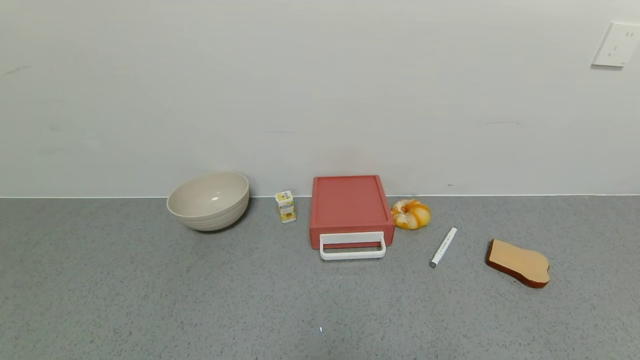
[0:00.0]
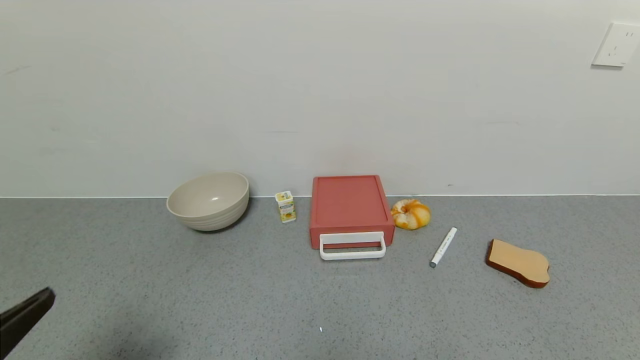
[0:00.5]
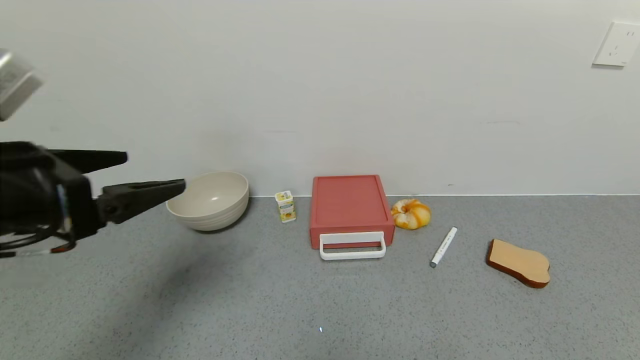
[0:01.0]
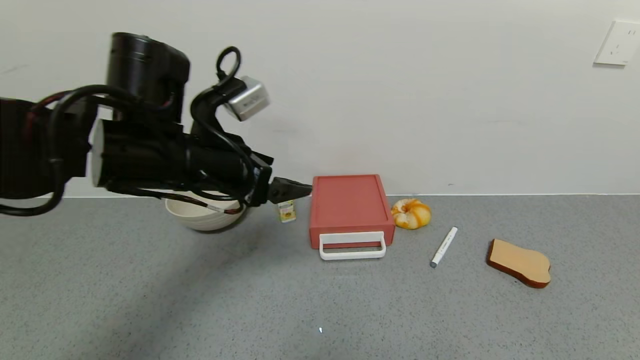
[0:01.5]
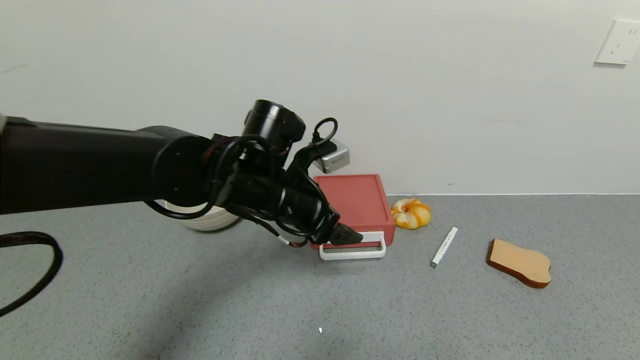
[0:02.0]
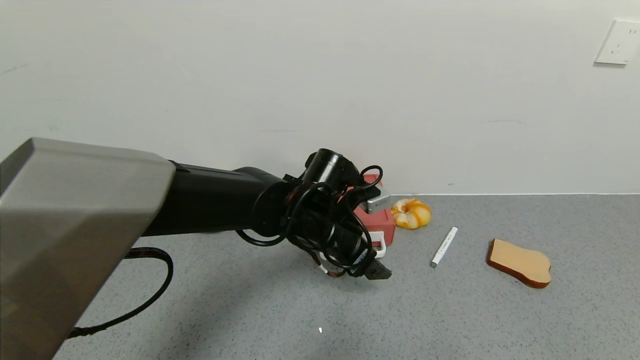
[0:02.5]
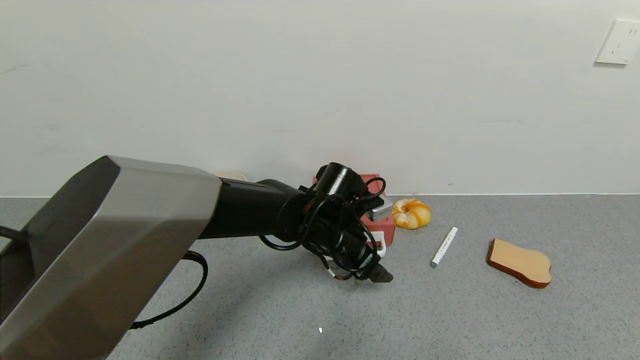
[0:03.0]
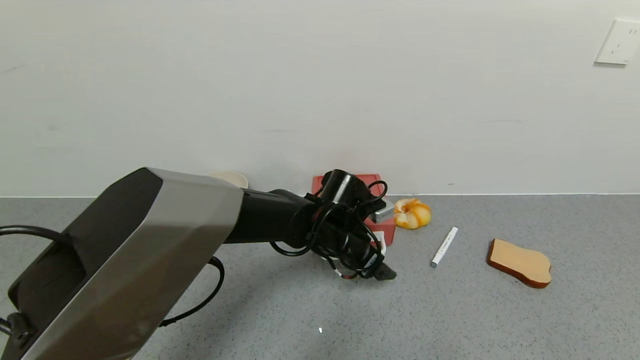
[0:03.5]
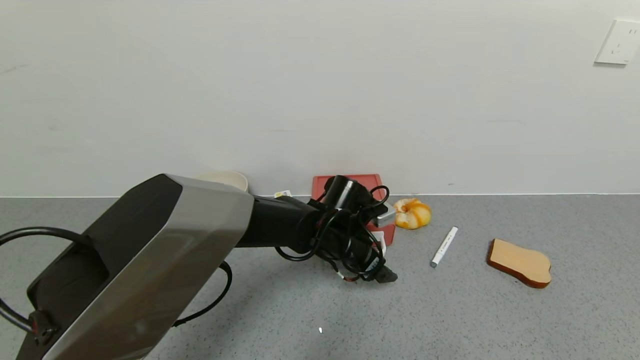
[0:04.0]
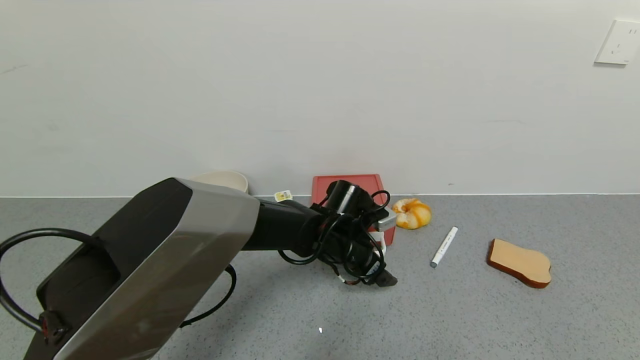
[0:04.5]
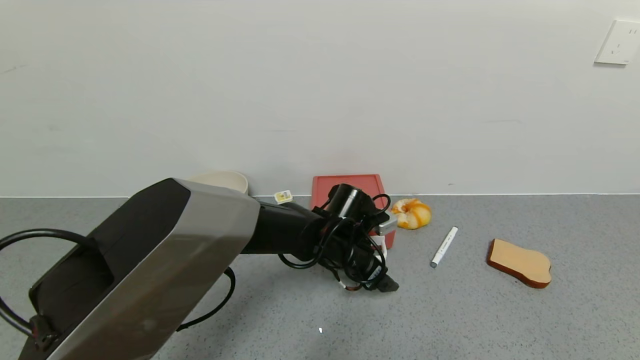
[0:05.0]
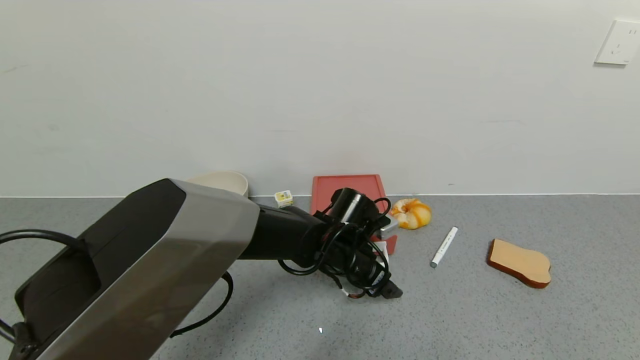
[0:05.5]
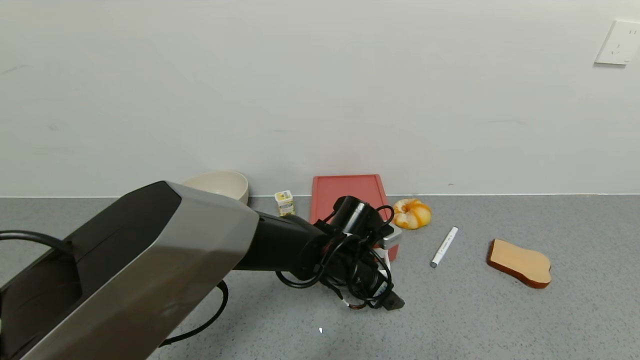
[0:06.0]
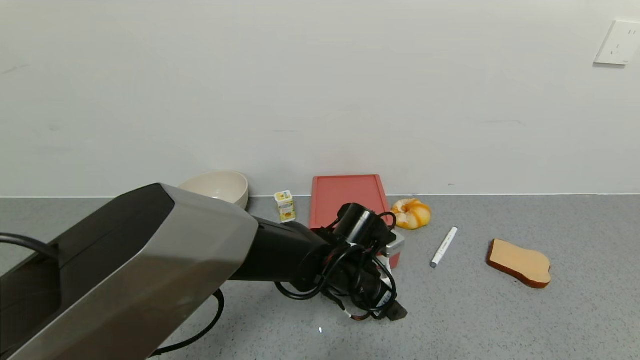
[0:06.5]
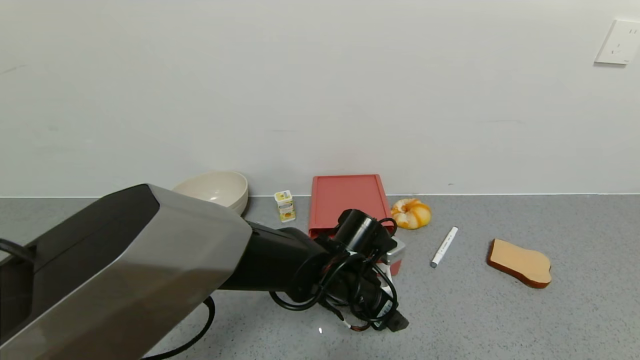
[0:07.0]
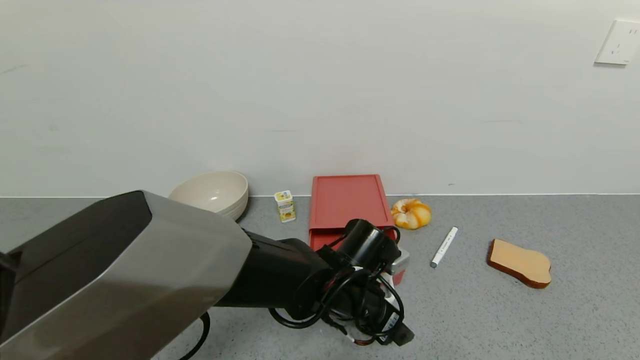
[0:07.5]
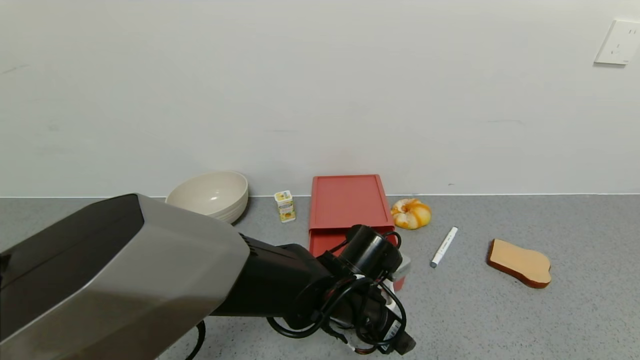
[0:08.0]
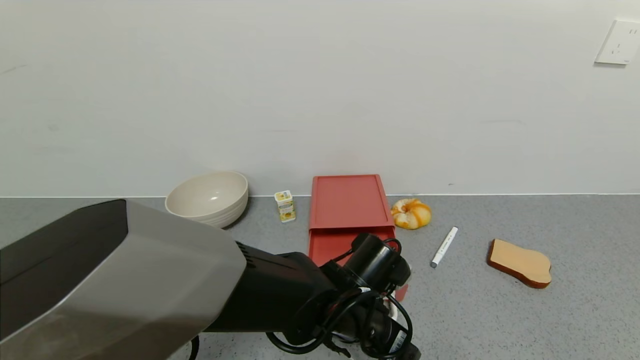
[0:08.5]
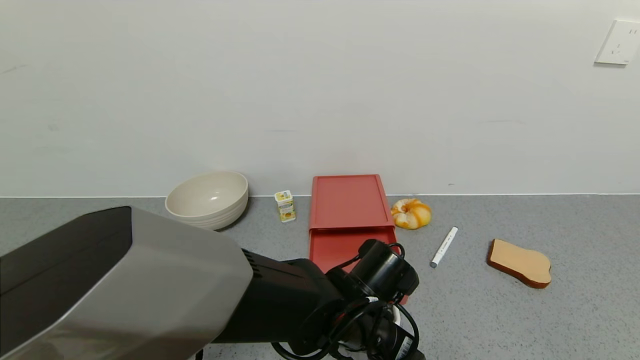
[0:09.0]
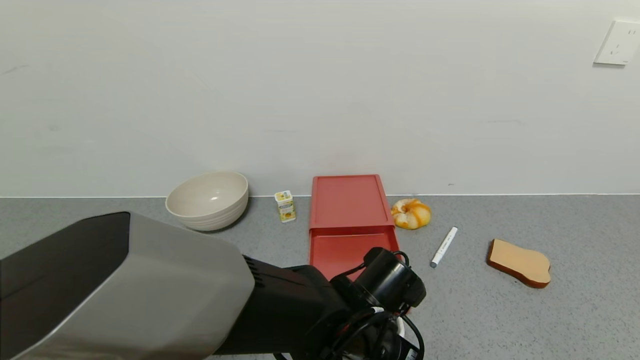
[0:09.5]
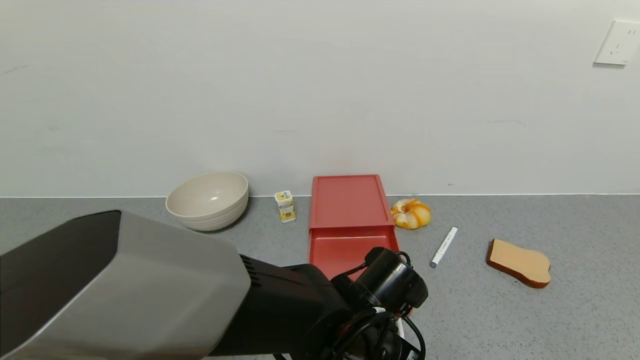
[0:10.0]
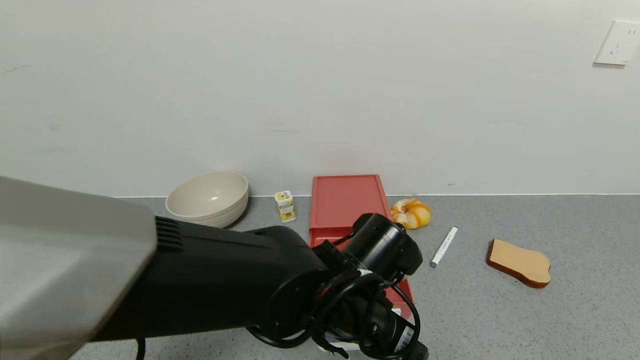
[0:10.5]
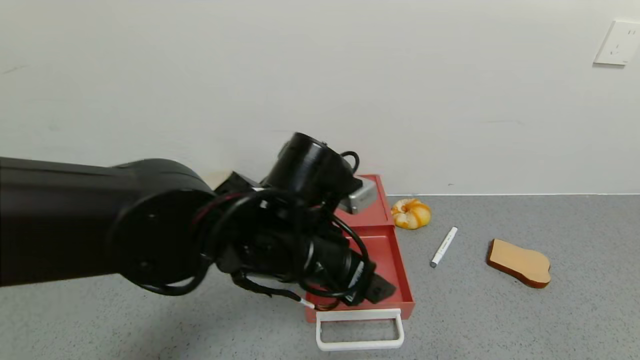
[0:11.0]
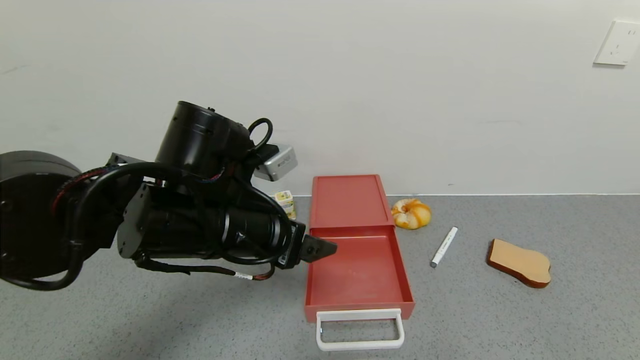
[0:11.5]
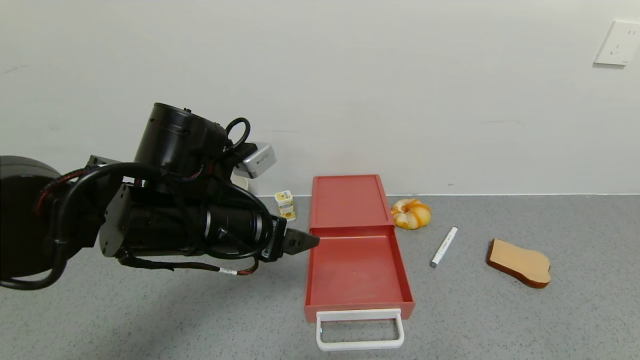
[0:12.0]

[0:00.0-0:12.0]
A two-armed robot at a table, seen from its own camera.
Task of the whole recording: use the gripper to open the drawer and close the red drawer.
Step, 0:00.0 to 0:11.0: Open the red drawer with left gripper.
0:00.0 to 0:02.0: The left gripper goes roughly 40 cm forward and to the right.
0:02.0 to 0:04.0: The left gripper is displaced downward and to the right by about 15 cm.
0:04.0 to 0:06.0: The left gripper changes place by about 5 cm.
0:06.0 to 0:08.0: The left gripper travels backward by about 5 cm.
0:08.0 to 0:10.0: The grippers make only small movements.
0:10.0 to 0:12.0: The left gripper is displaced to the left and upward by roughly 20 cm.

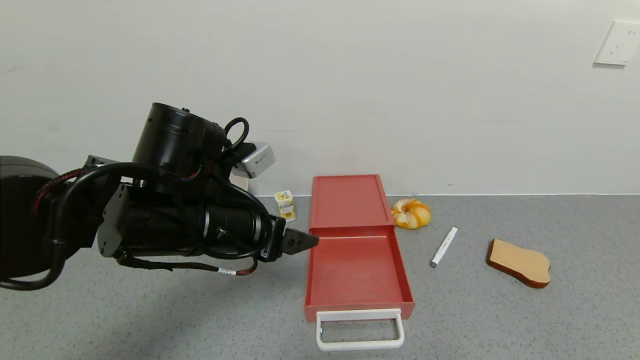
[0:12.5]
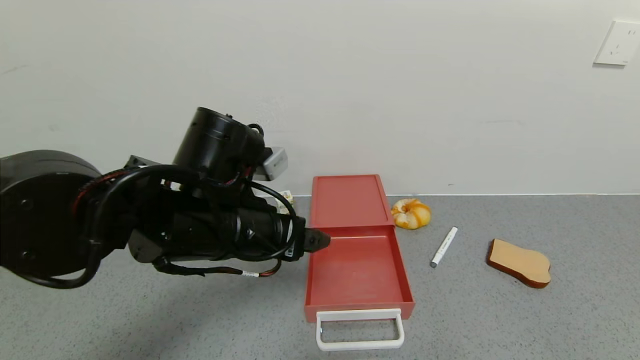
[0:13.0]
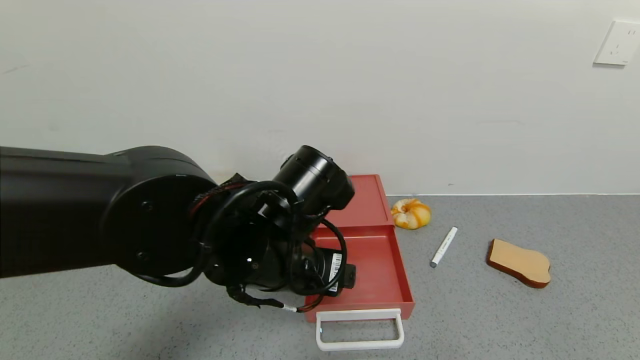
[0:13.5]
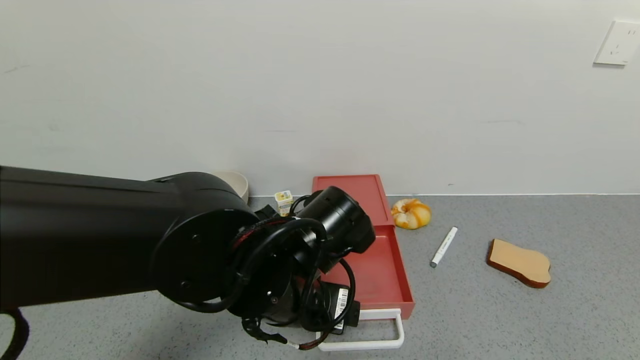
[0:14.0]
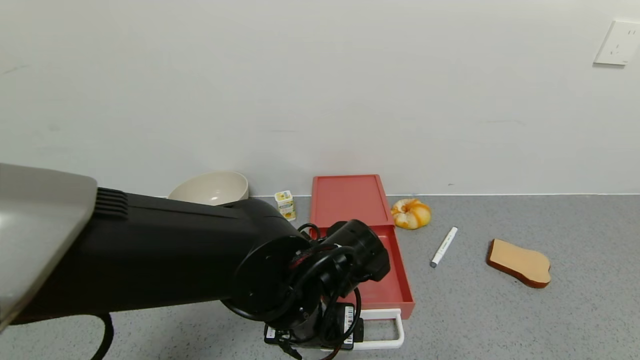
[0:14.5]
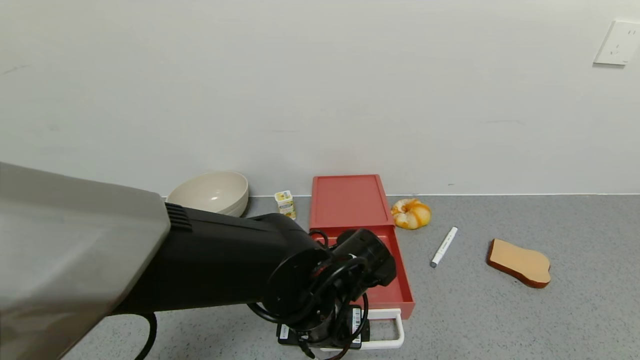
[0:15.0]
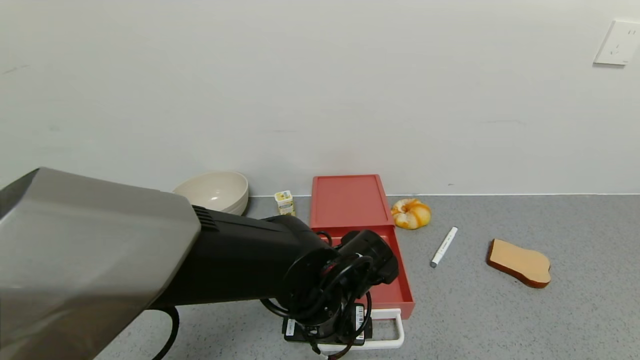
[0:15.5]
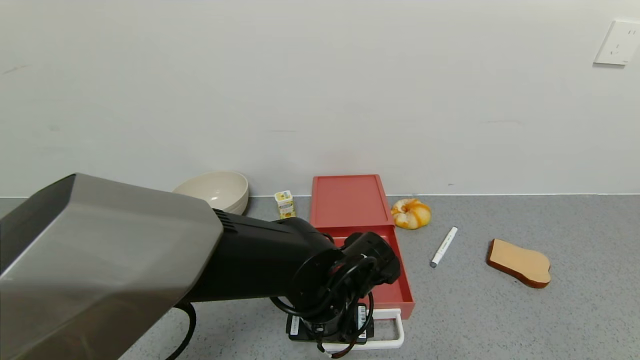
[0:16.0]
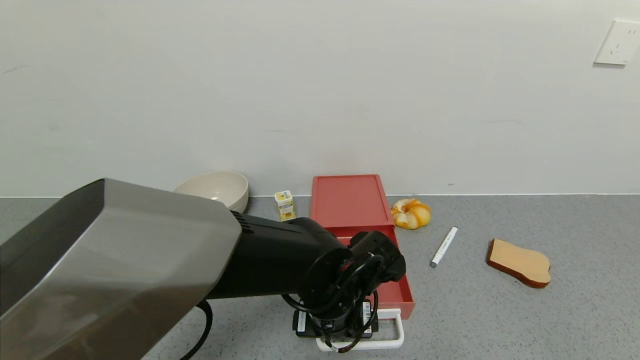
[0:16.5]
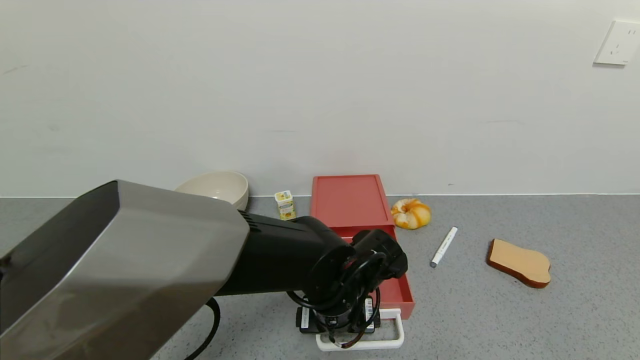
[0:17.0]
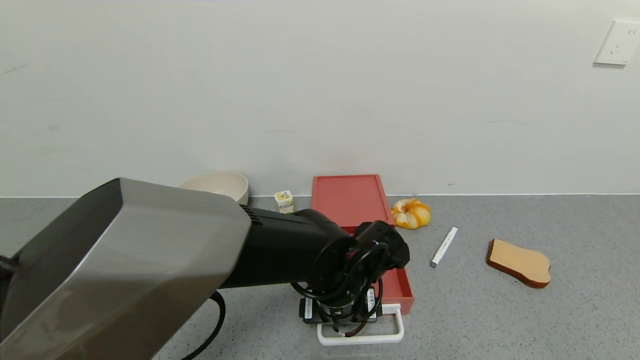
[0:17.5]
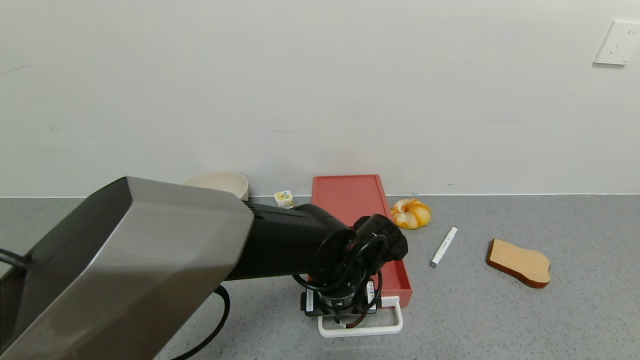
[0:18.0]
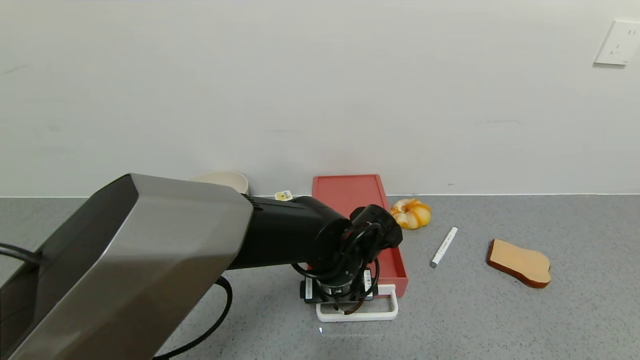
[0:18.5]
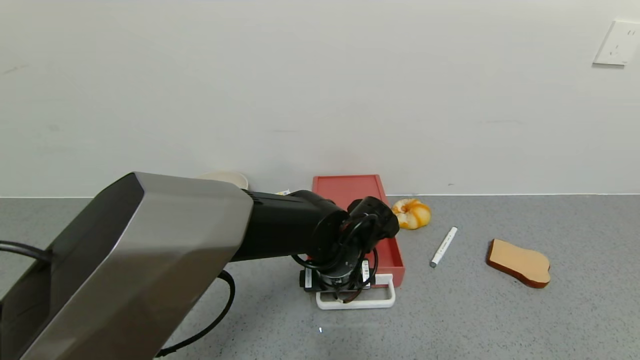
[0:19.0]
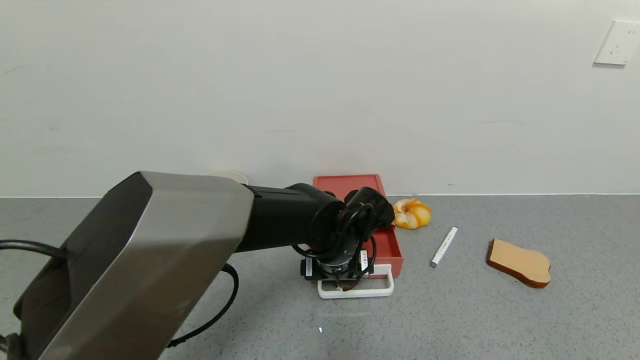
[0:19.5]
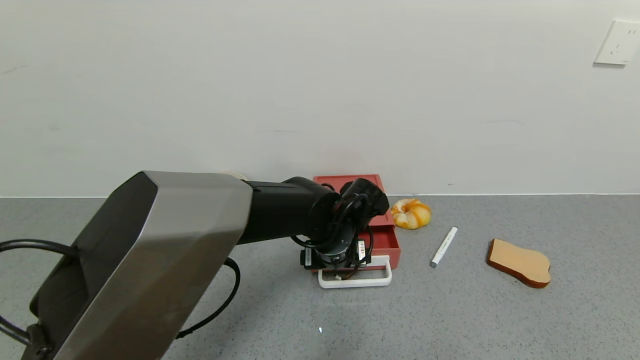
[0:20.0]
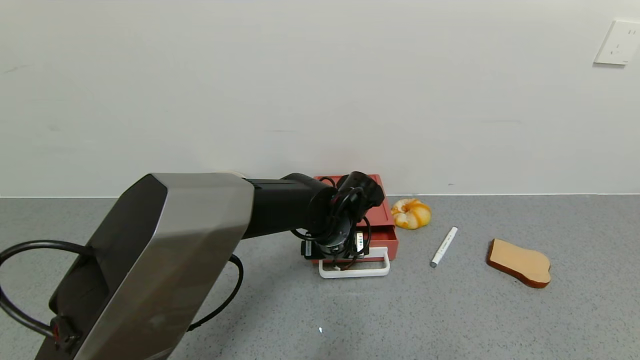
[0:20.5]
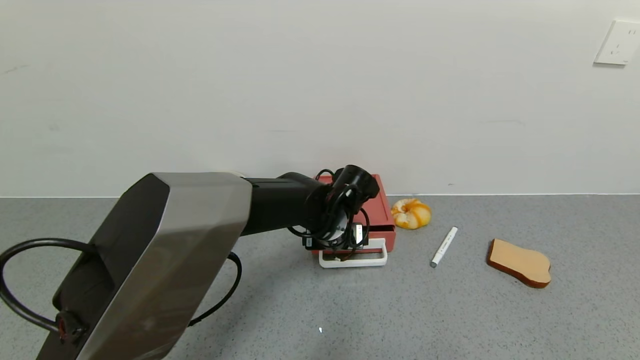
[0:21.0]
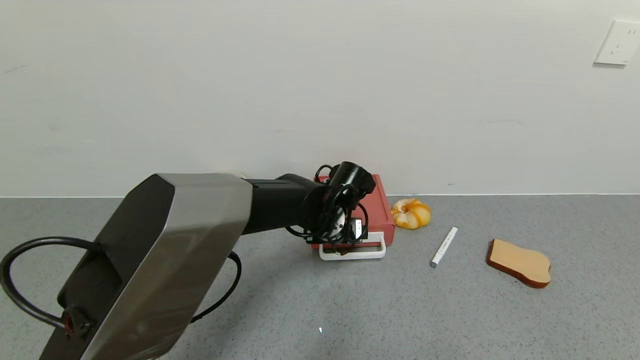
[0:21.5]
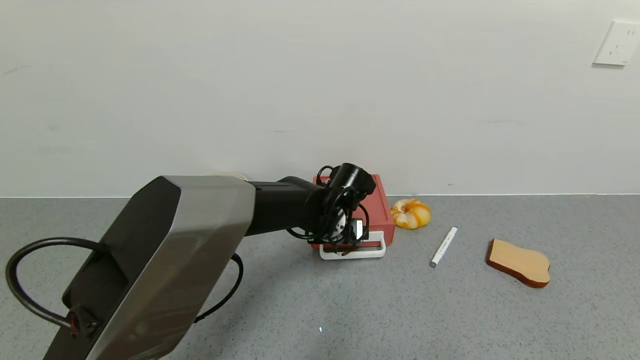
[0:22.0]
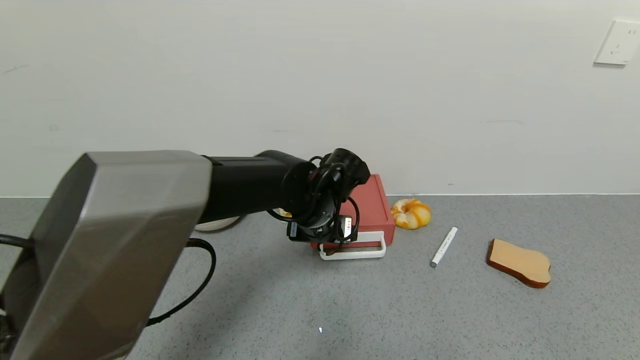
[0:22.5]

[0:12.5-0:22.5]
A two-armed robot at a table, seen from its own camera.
Task of the whole recording: use the gripper to open the drawer and close the red drawer.
Step, 0:12.5 to 0:20.5: Close the red drawer with left gripper.
0:12.5 to 0:14.5: The left gripper moves to the right and downward, some 15 cm.
0:14.5 to 0:16.5: The left gripper ends up roughly 5 cm from where it was.
0:16.5 to 0:18.5: The grippers move only a little.
0:18.5 to 0:20.5: The left gripper goes roughly 5 cm forward.
0:20.5 to 0:22.5: The left gripper shifts by roughly 5 cm.
